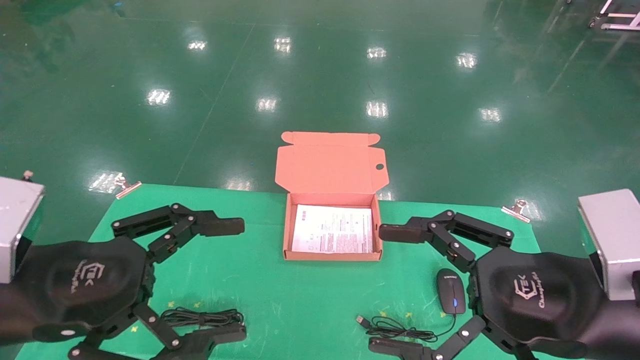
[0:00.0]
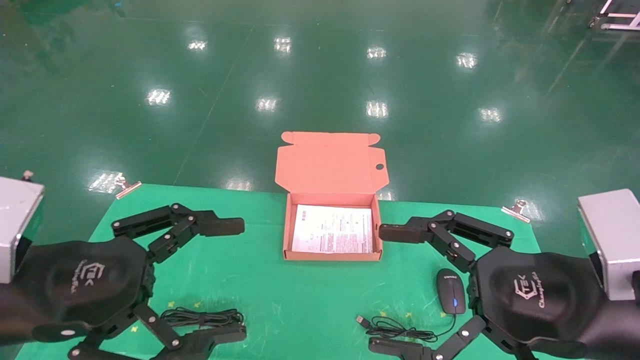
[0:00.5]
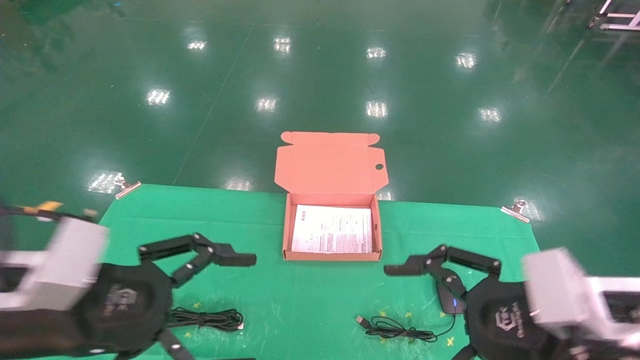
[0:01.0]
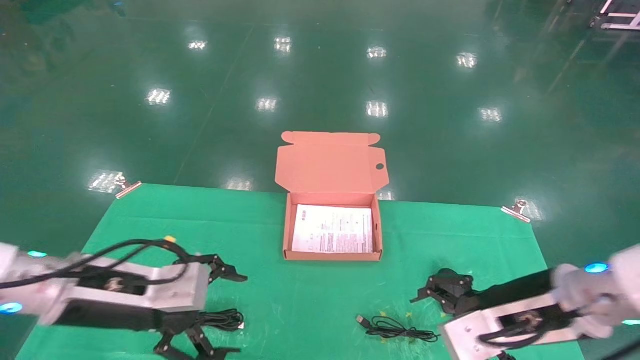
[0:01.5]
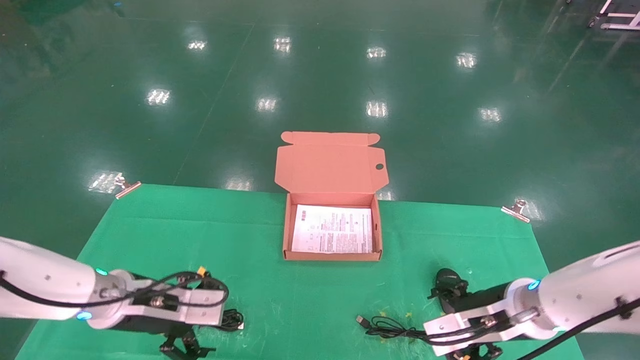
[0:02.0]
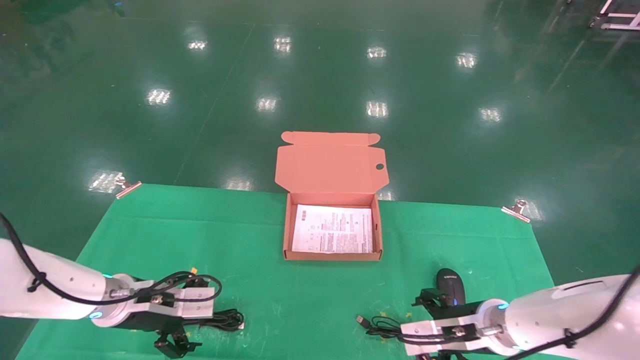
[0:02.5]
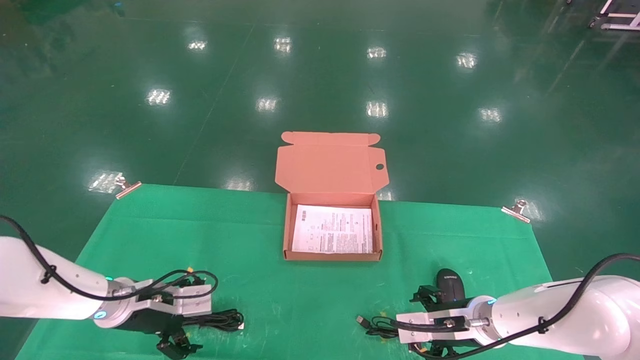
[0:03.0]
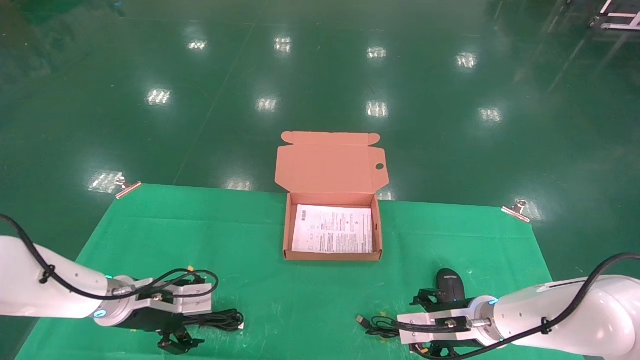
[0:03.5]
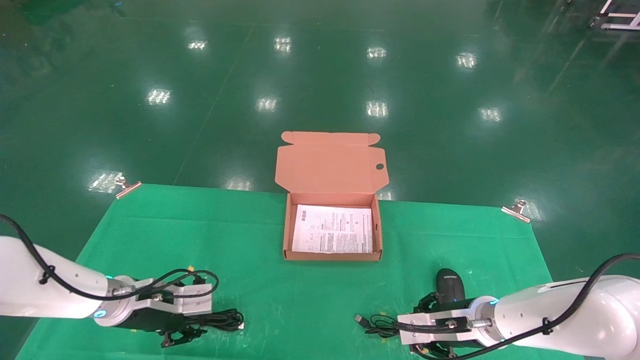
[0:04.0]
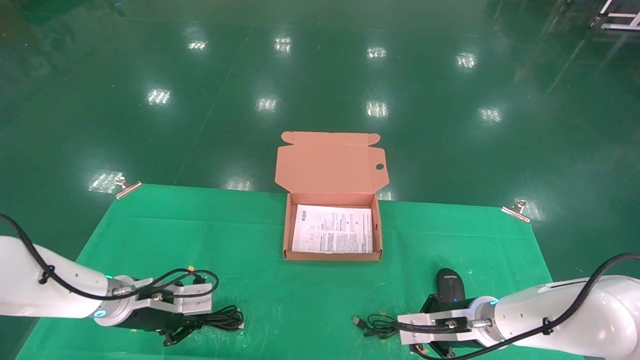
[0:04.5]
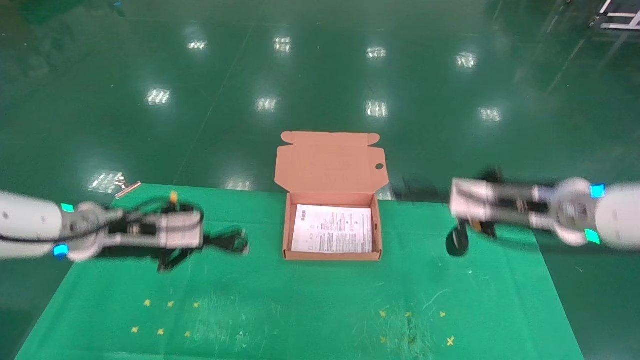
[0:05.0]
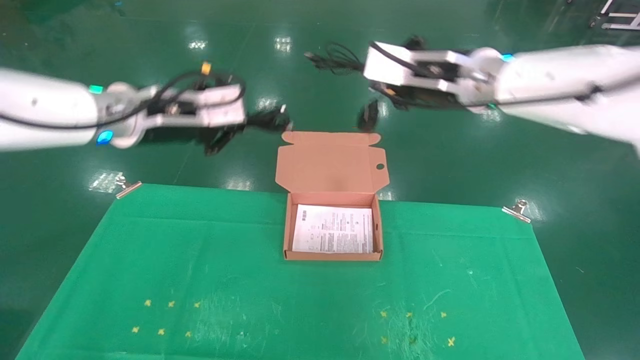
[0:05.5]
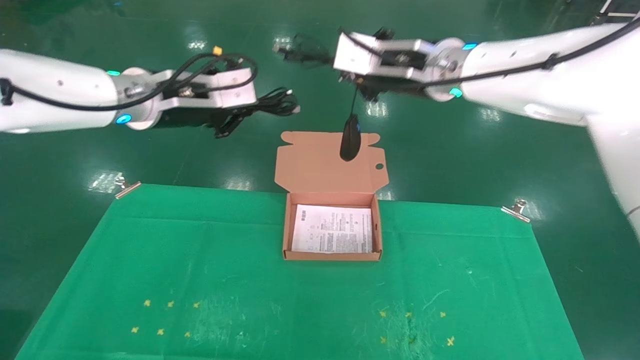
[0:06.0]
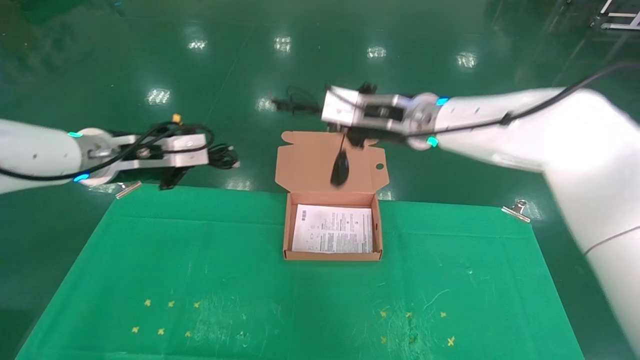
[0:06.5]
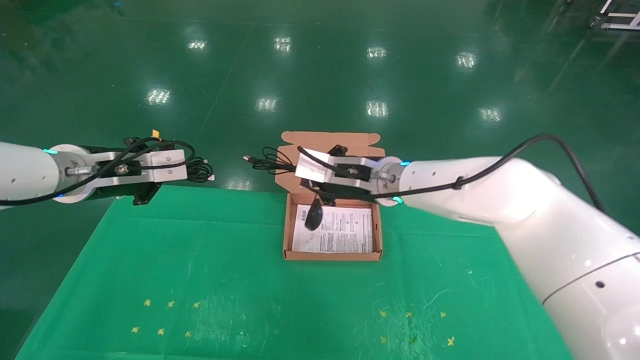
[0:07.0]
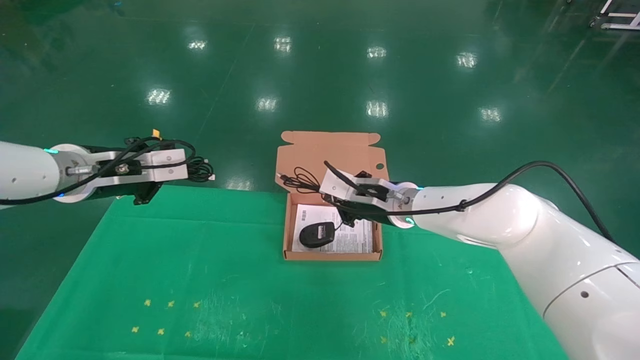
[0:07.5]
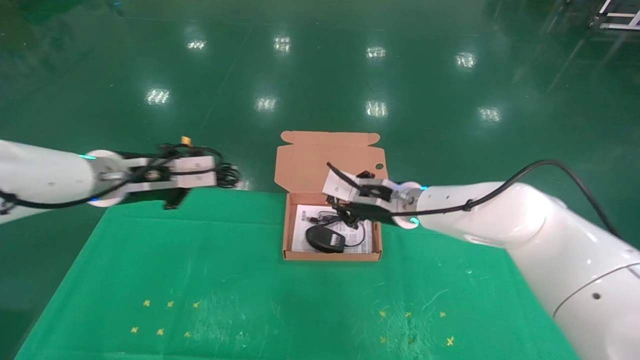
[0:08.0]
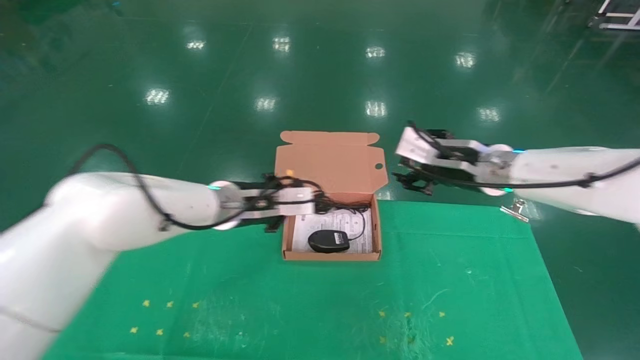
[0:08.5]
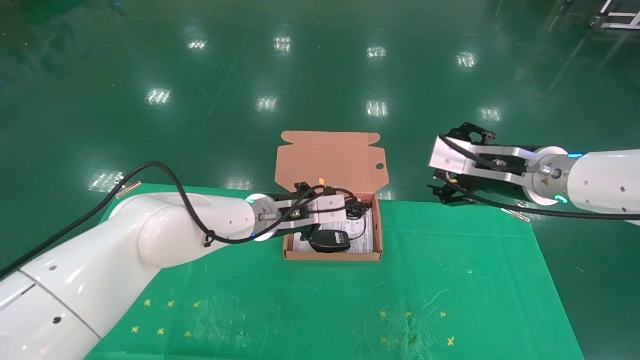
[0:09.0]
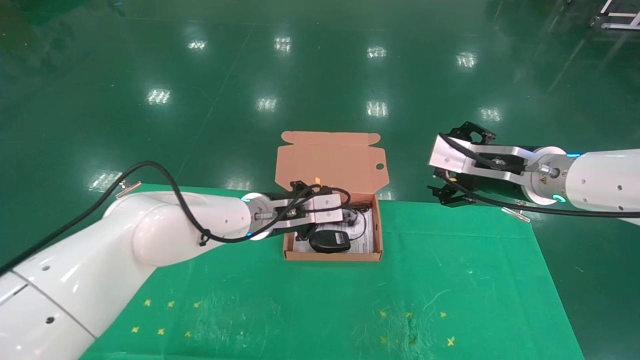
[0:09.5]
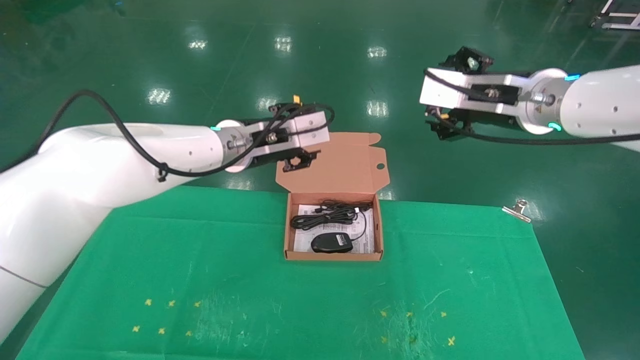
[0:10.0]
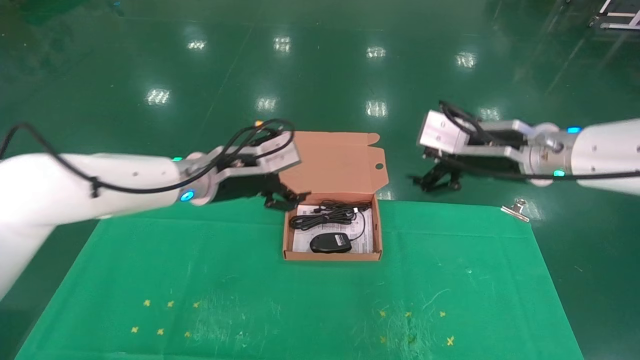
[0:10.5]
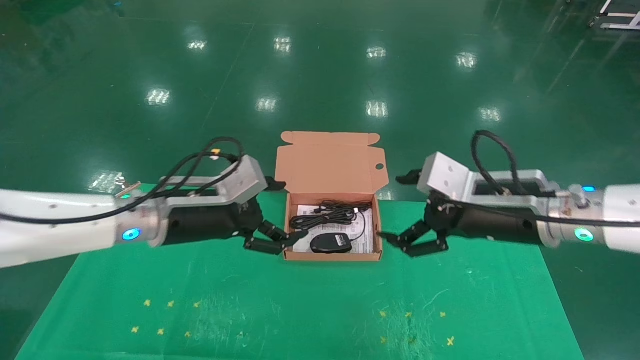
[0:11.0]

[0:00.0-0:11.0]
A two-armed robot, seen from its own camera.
Task of the whole recording: grasp data cable left put into box grasp mouse right put into box.
Step, 0:01.0 to 0:05.0: Grab and pick up both the mouse and power cord from the accessory packaging area at the same time.
Step, 0:05.5 to 0:10.0: Place the mouse and power cord into the box.
0:00.0 to 0:02.0: Both grippers move forward and downward, approximately 20 cm.
0:02.0 to 0:03.5: The right gripper heads downward and forward, covering some 10 cm. The left gripper travels forward and downward by roughly 10 cm.
0:03.5 to 0:05.5: The two grippers go some 30 cm upward. The right gripper closes; the left gripper closes.
0:05.5 to 0:07.5: The left gripper heads to the left and downward, covering some 10 cm, while the right gripper heads downward, covering about 20 cm.
0:07.5 to 0:09.0: The right gripper goes some 20 cm to the right, backward and upward, and opens its fingers, while the left gripper is displaced to the right and downward by about 25 cm.
0:09.0 to 0:11.0: The right gripper is displaced backward by about 5 cm, and travels upward and back again, about 5 cm each way; the left gripper is displaced to the left and backward by about 15 cm, and opens its fingers.
